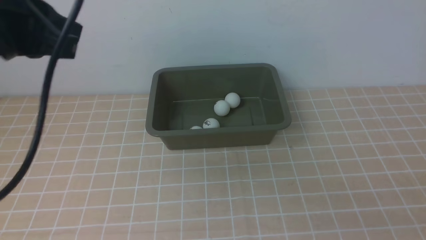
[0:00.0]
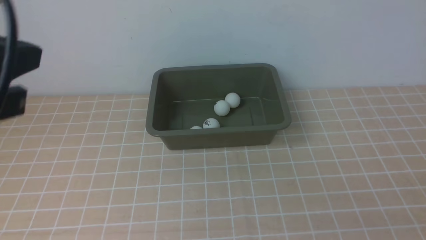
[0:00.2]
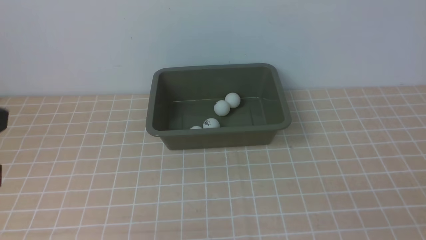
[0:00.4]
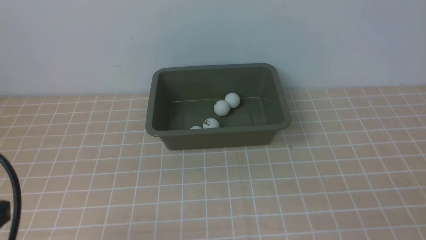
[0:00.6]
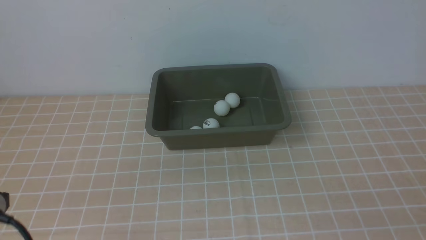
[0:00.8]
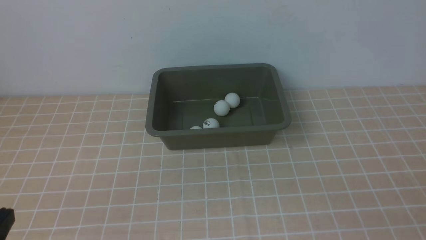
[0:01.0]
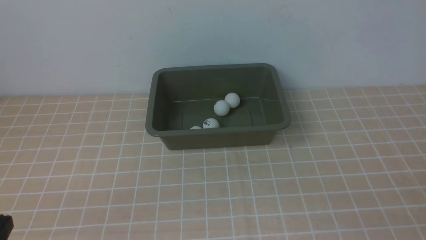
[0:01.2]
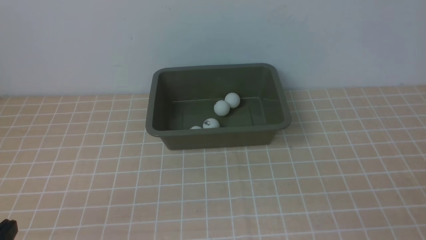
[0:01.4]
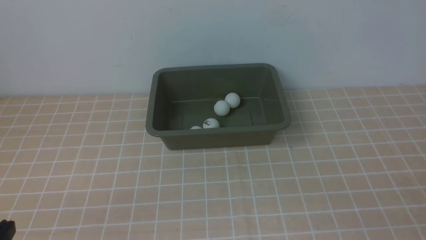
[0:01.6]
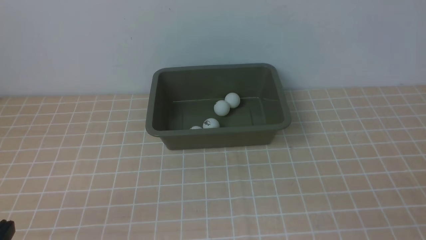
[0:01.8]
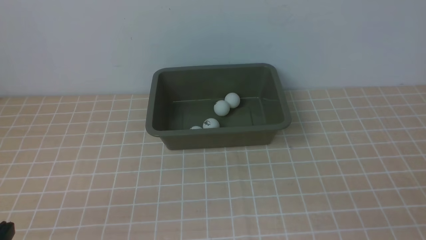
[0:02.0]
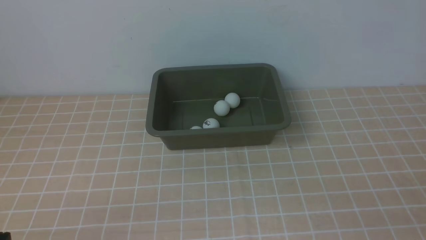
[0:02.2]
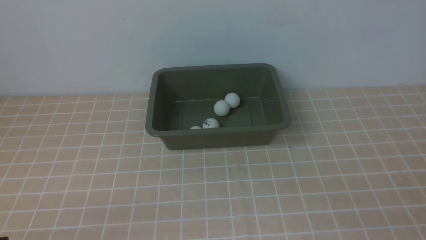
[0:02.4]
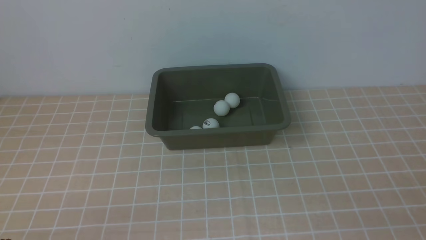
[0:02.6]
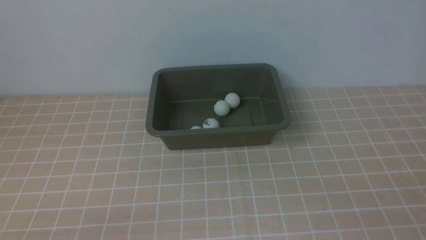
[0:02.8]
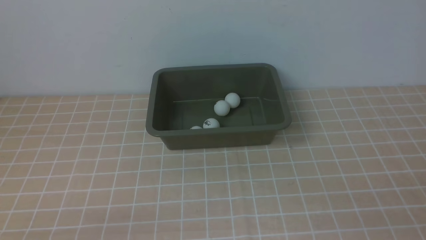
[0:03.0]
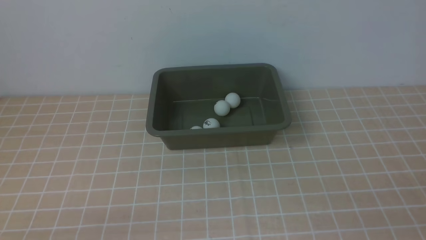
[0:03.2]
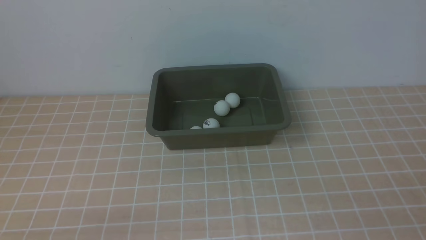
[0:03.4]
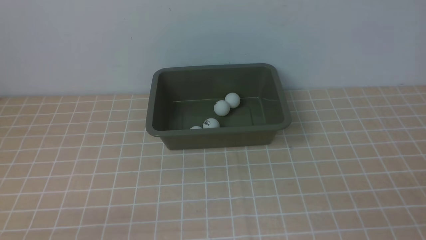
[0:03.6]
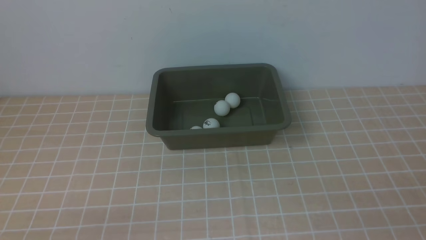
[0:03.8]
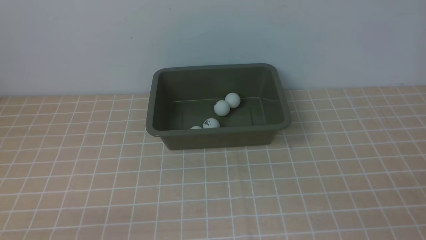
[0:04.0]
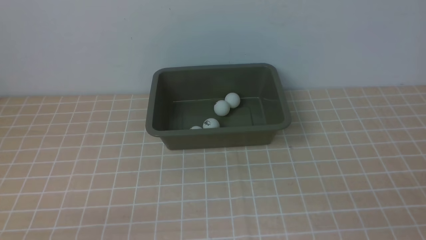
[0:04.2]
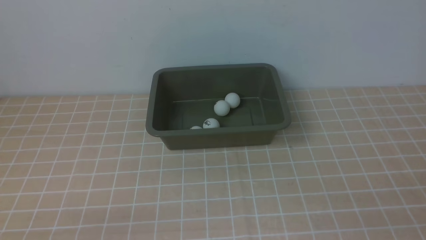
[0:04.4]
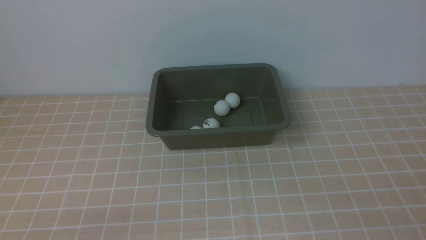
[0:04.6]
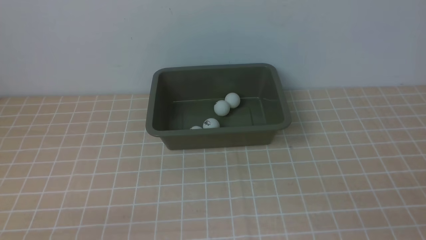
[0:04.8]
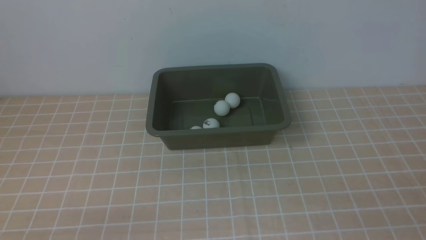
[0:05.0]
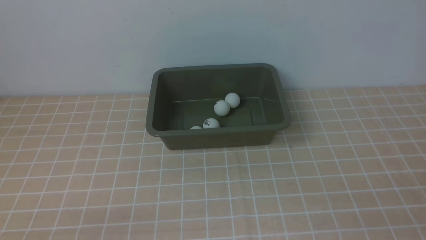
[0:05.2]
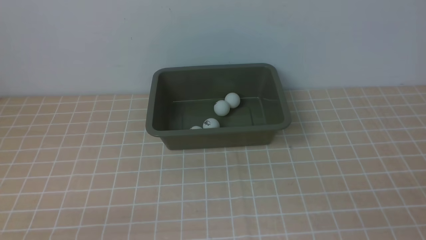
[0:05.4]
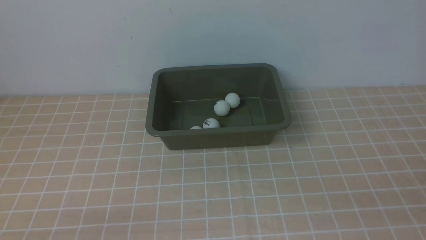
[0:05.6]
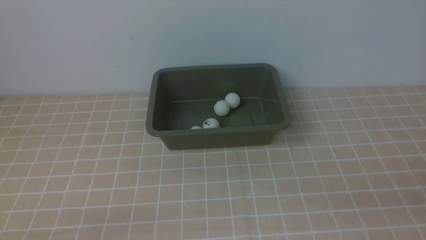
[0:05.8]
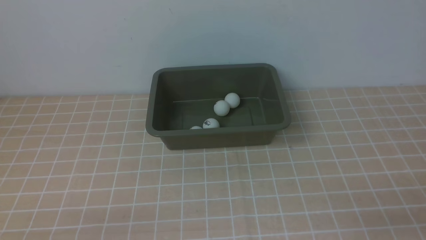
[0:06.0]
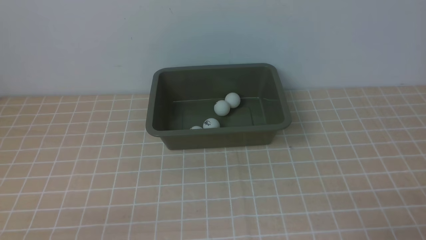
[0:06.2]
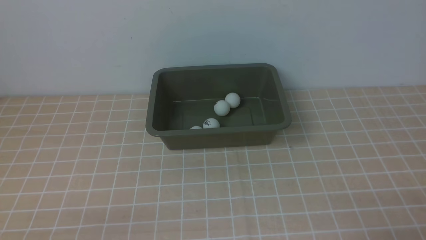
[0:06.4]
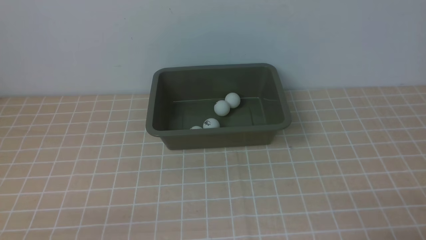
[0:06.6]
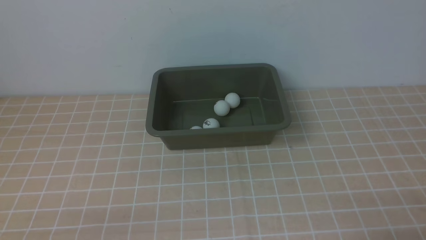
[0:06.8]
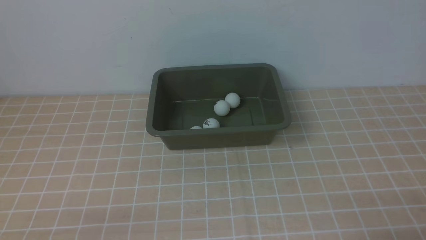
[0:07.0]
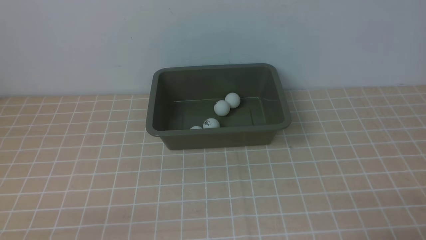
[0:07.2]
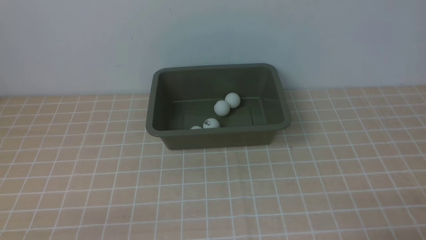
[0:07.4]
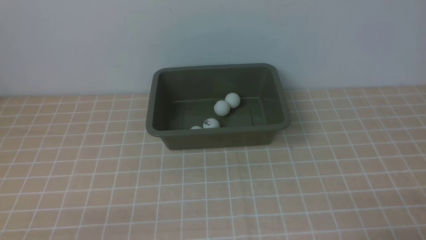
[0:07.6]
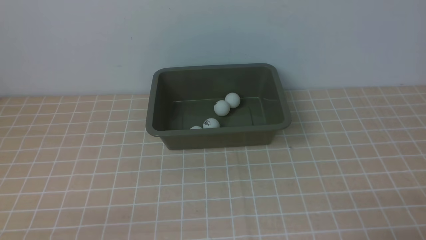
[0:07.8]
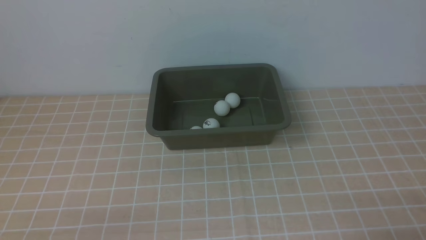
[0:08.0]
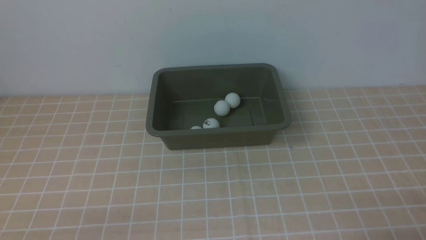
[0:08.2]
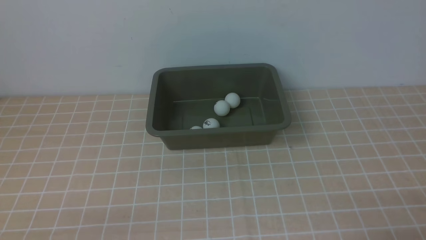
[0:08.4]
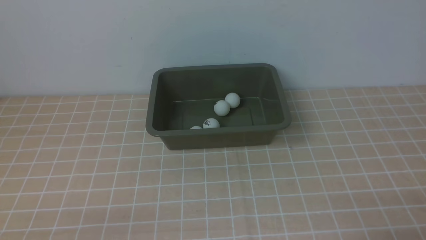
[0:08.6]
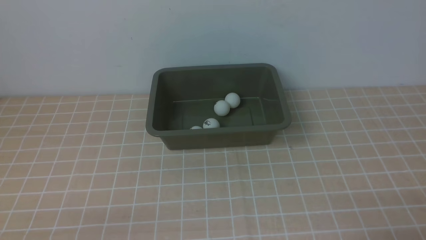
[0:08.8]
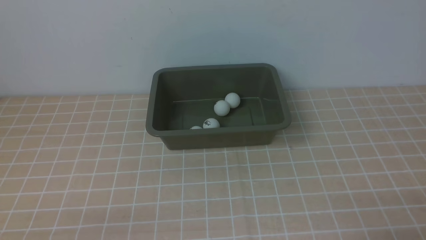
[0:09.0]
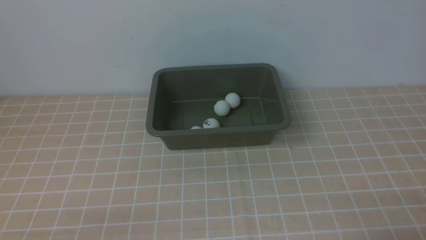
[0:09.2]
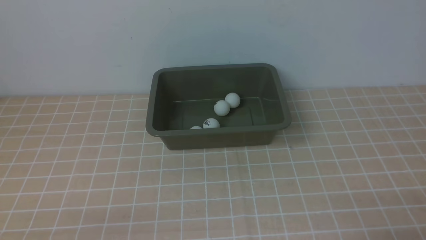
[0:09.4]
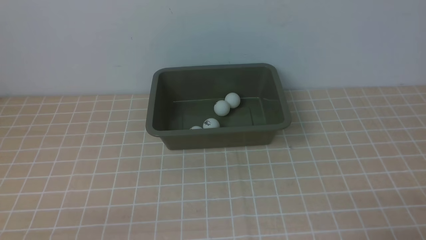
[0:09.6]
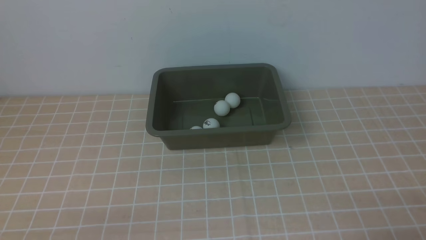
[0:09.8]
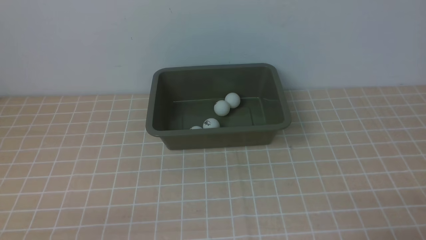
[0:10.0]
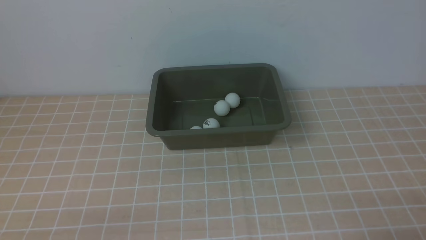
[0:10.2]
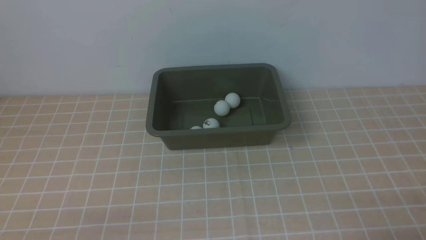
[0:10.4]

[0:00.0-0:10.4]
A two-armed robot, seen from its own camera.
0:00.0 to 0:01.4: The left gripper shifts approximately 25 cm downward and backward.
0:03.0 to 0:04.4: Both grippers stay about where they are.
0:07.4 to 0:10.4: The two grippers keep their place.

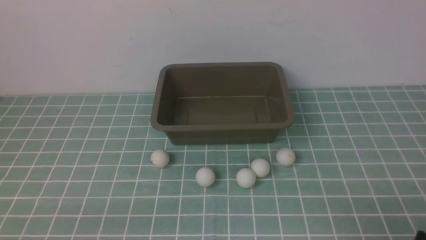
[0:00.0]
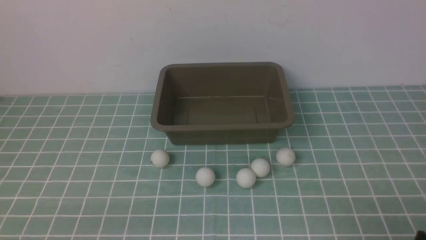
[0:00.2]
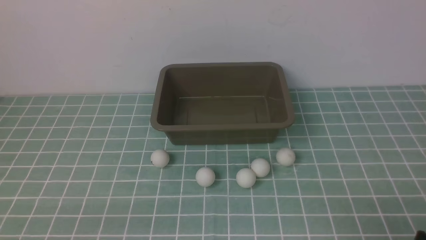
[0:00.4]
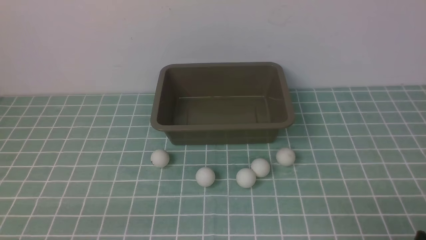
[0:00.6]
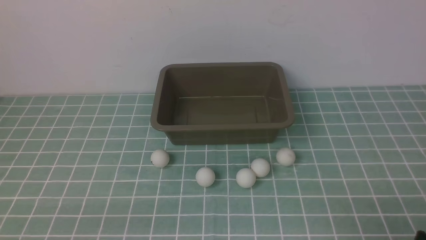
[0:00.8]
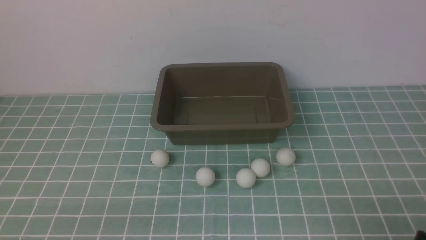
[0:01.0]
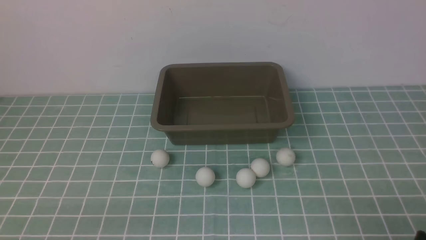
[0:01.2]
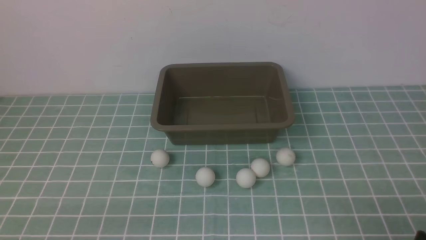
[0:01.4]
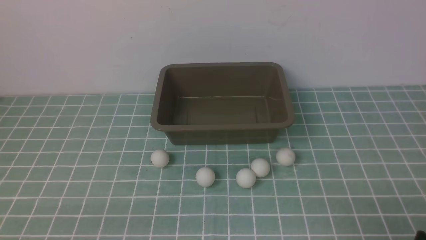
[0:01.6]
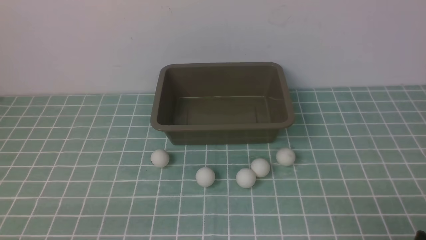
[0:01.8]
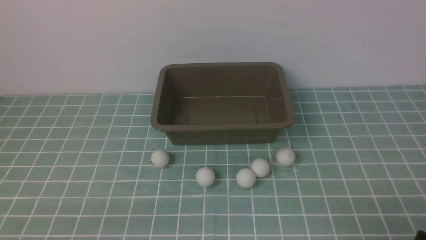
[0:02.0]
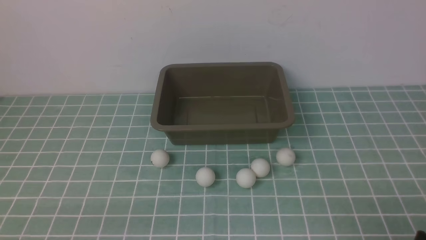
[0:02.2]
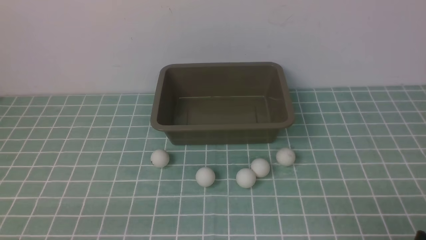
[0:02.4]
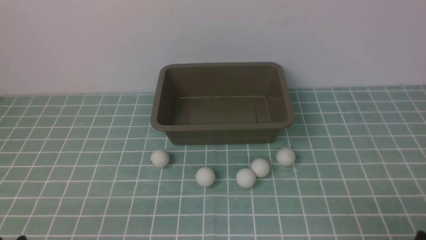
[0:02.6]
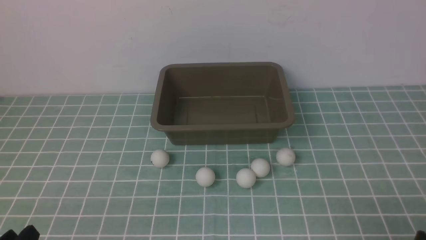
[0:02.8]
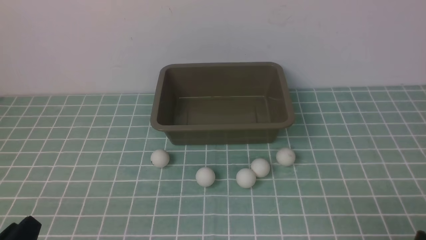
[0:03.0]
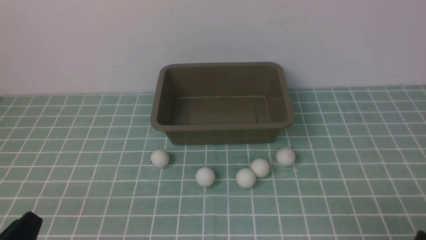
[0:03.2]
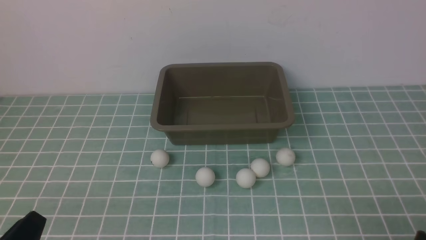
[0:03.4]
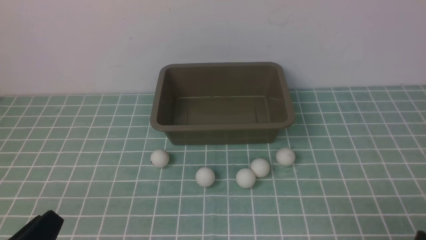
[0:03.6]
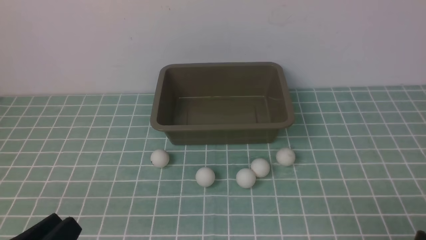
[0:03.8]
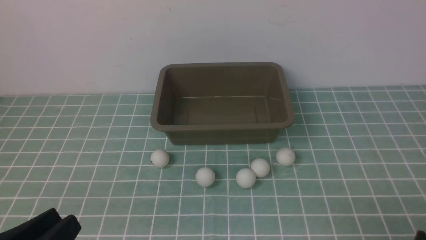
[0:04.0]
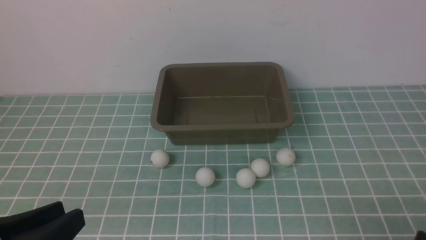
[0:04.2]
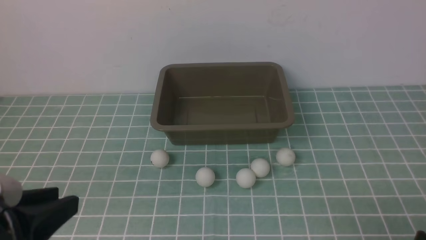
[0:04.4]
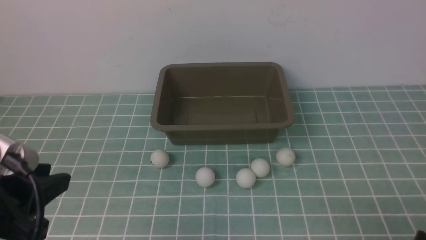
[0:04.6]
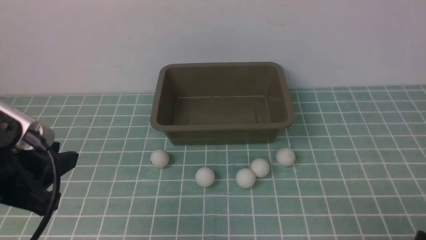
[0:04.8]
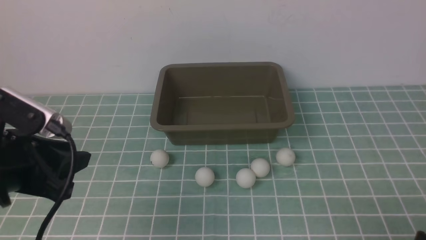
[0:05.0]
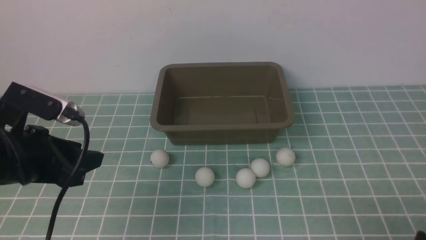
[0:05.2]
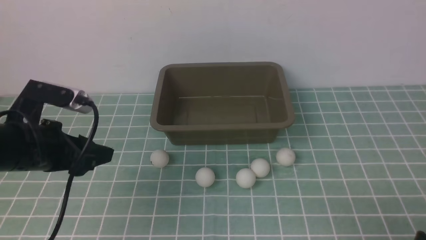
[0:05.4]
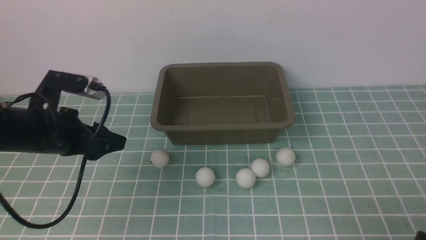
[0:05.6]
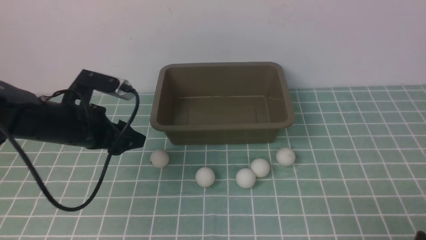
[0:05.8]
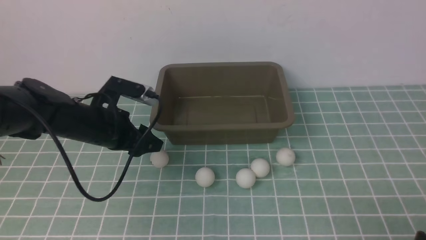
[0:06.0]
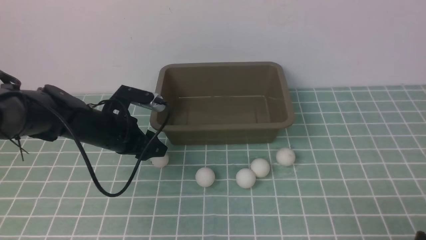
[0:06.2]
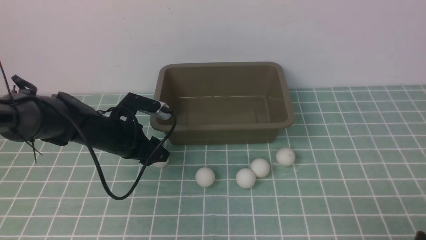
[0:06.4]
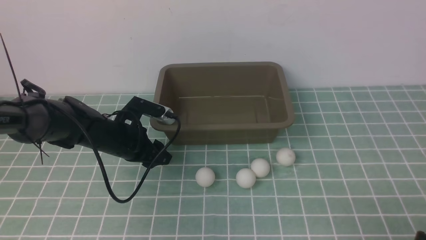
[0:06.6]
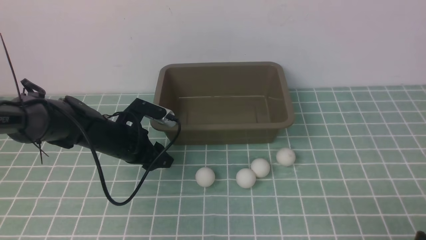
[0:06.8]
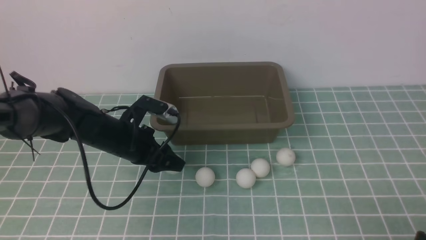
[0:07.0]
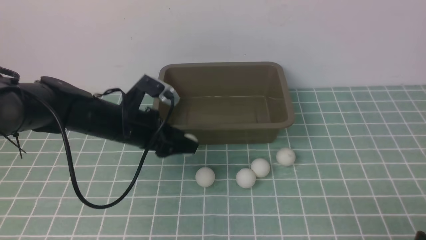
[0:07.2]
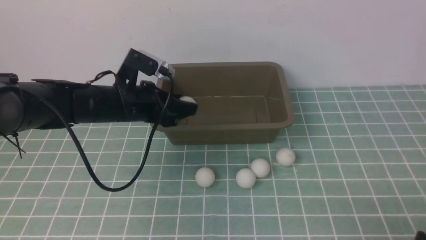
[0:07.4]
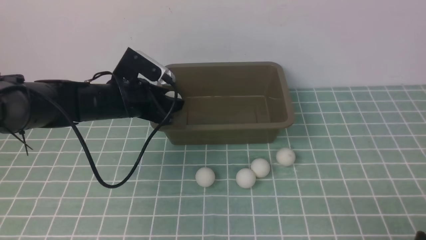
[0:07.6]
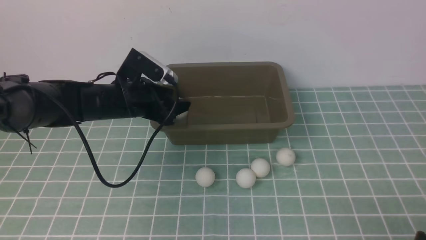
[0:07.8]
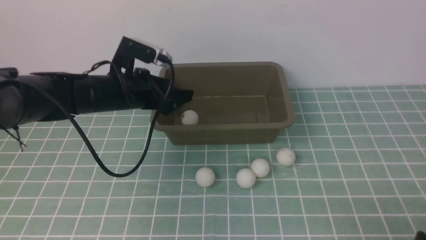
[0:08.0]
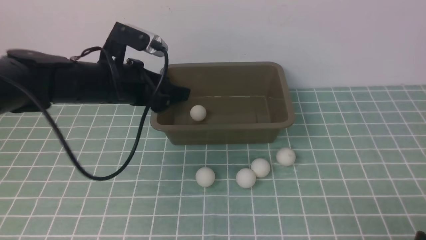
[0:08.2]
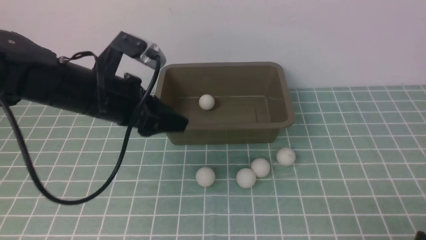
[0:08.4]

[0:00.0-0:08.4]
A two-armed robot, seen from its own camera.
Step, 0:00.0 to 0:07.0: use the left arm to clamp the table tennis ball closest to it.
Step, 0:07.2 to 0:08.0: use the left arm to put the table tennis ball into the box.
0:00.0 to 0:01.4: Neither gripper changes place.
0:02.8 to 0:04.2: The left gripper travels upward by some 10 cm.
0:04.2 to 0:05.6: The left gripper goes approximately 25 cm forward, and opens its fingers.
0:05.6 to 0:07.0: The left gripper travels downward, to the right and forward by approximately 10 cm.
0:07.0 to 0:08.4: The left gripper moves upward, roughly 10 cm.
